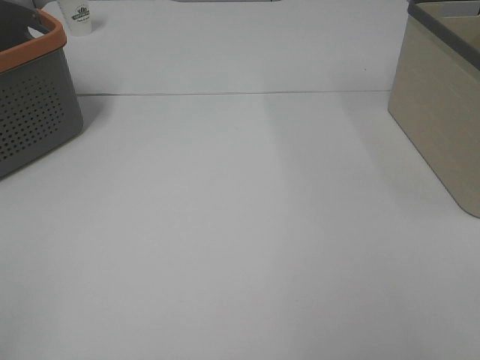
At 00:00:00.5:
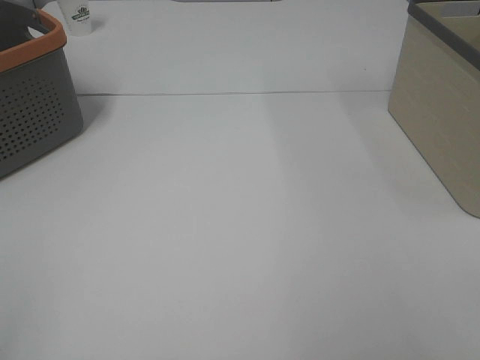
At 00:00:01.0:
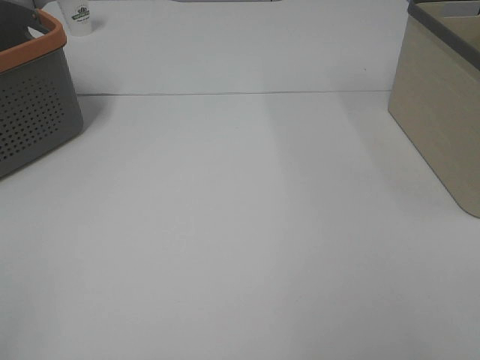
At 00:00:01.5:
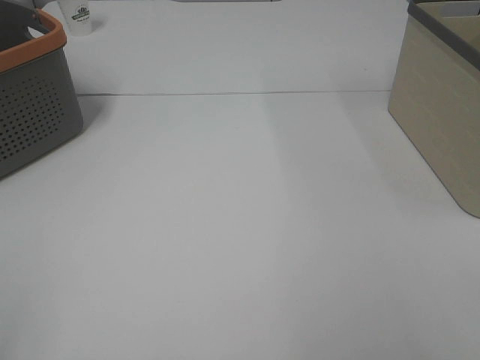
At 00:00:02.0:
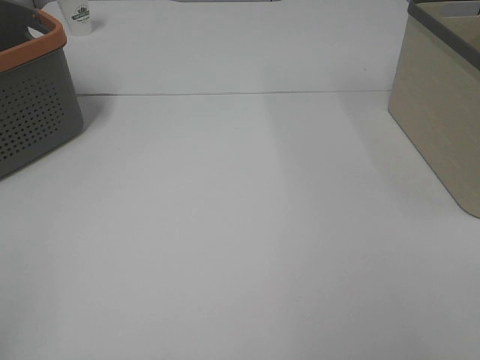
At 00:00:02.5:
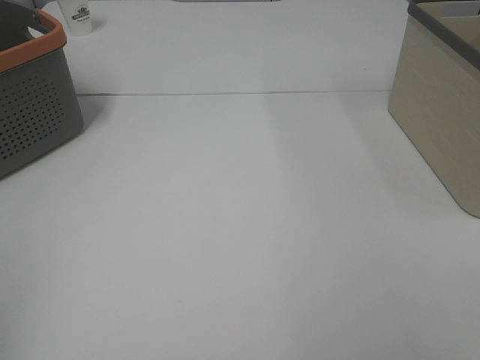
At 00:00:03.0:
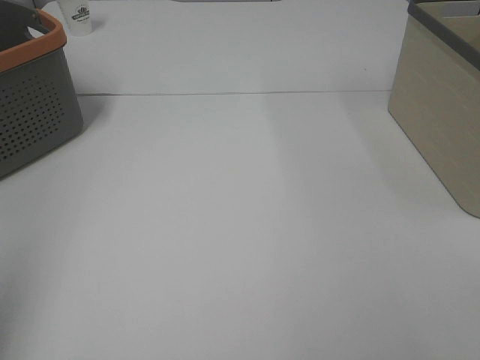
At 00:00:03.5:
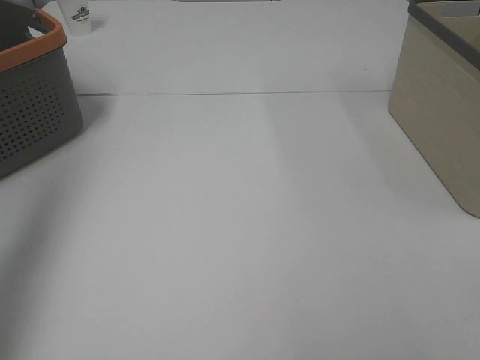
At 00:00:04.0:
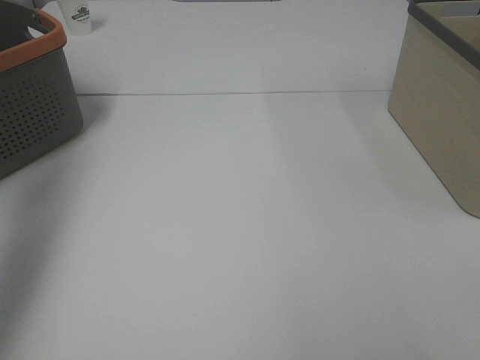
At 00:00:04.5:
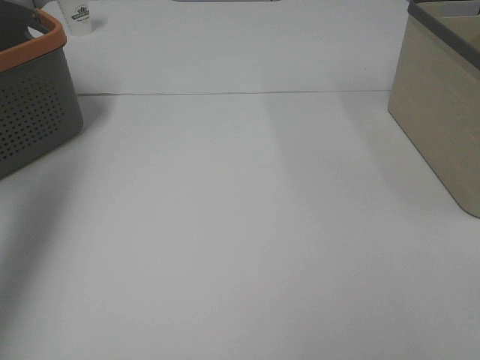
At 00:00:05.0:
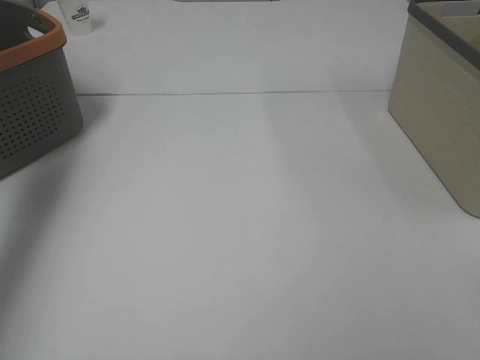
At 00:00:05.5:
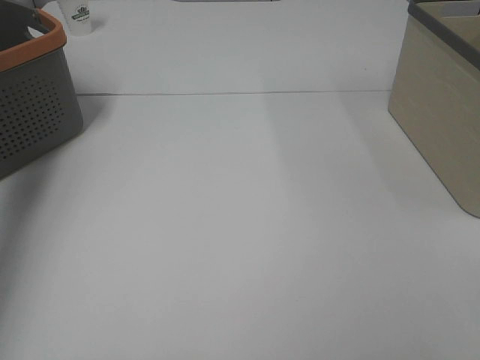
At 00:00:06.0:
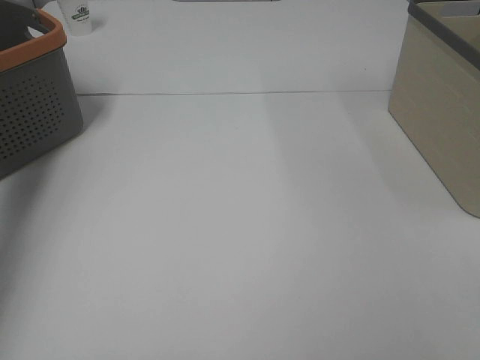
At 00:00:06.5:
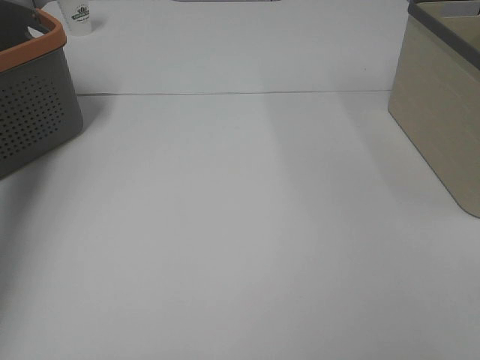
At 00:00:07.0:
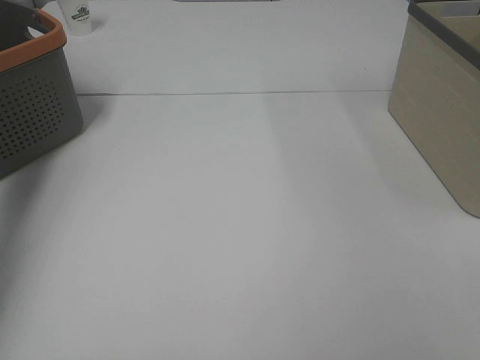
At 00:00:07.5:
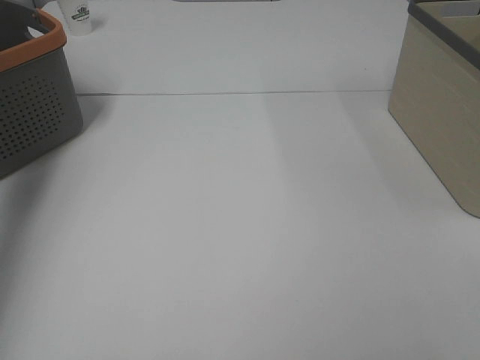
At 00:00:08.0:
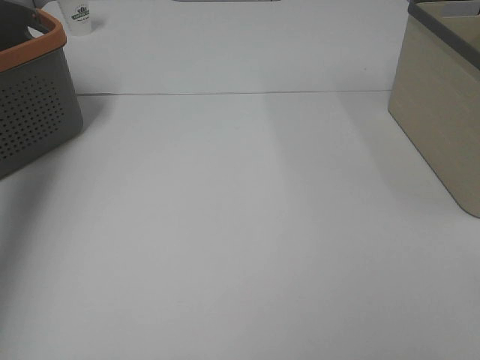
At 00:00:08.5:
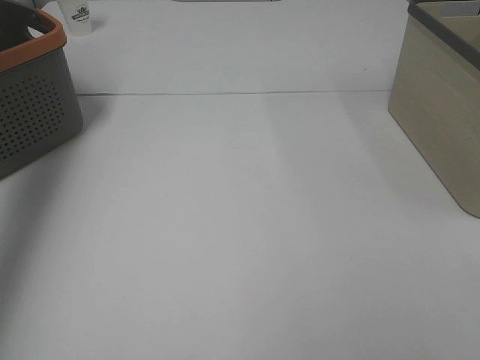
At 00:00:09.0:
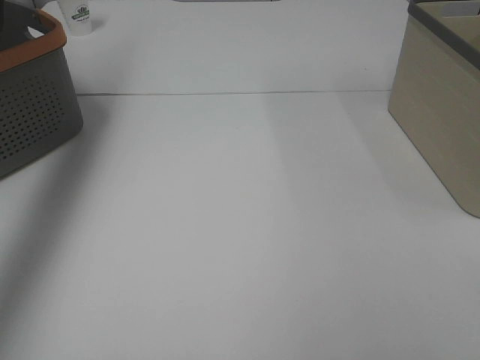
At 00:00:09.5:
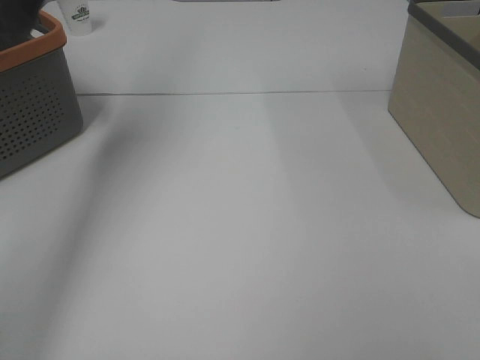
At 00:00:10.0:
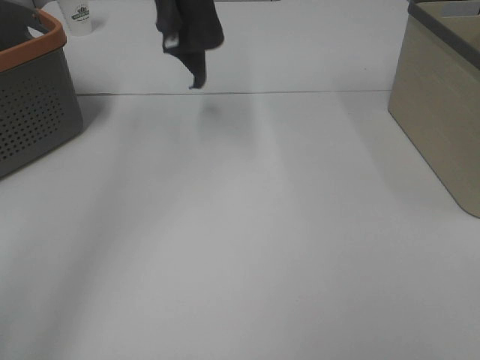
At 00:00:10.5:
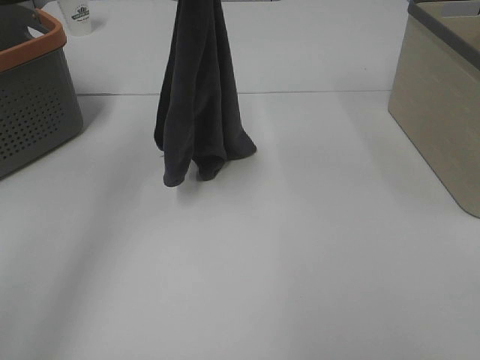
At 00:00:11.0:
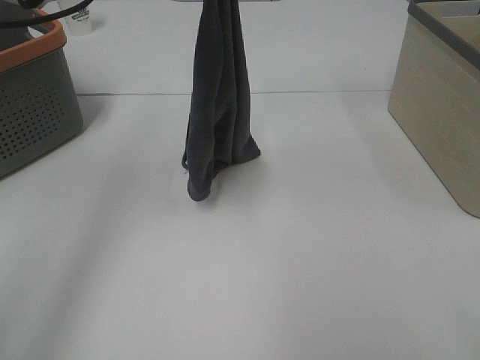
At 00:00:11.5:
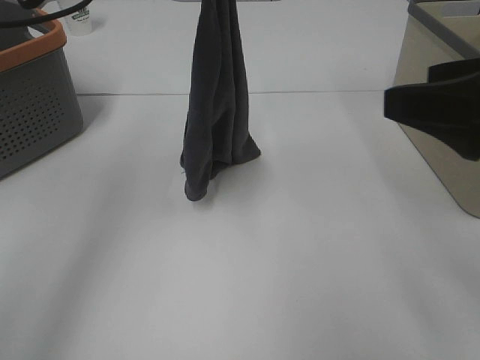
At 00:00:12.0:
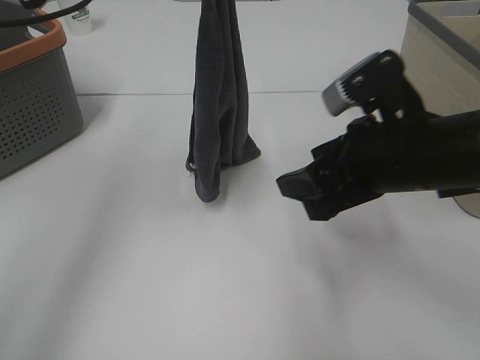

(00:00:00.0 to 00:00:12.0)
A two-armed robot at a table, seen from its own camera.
Task of the whole recording: Remove the towel and place it.
00:00:02.0 - 00:00:04.0: The left gripper travels forward by some 30 cm.
00:00:04.0 - 00:00:06.0: The left gripper shifts roughly 20 cm downward and forward.
00:00:08.0 - 00:00:10.0: The left gripper travels to the right and upward by some 25 cm.
00:00:10.0 - 00:00:12.0: The right gripper travels forward, to the left and downward by approximately 30 cm; the left gripper is displaced downward by roughly 15 cm.

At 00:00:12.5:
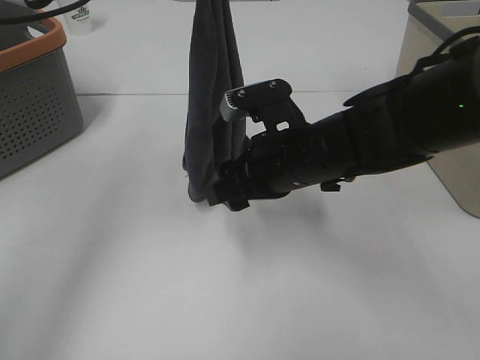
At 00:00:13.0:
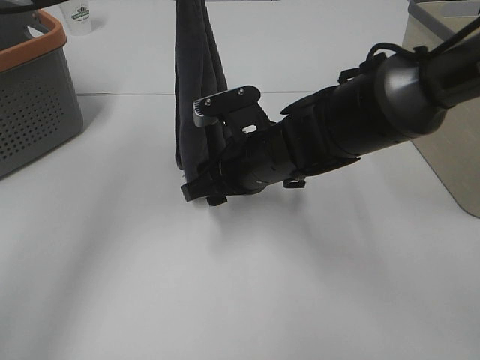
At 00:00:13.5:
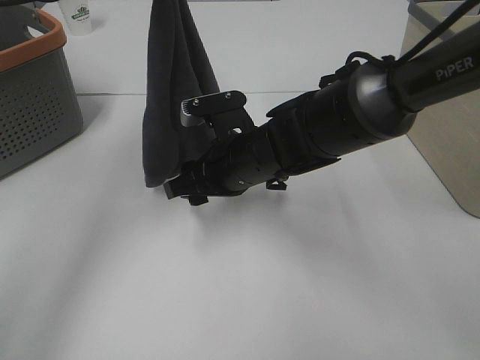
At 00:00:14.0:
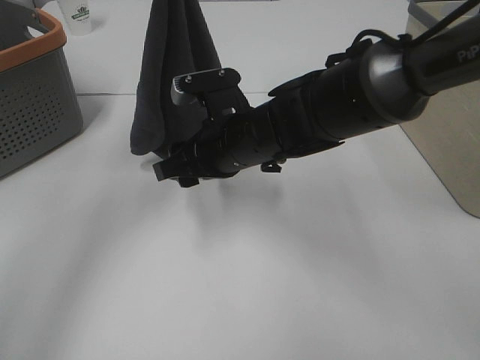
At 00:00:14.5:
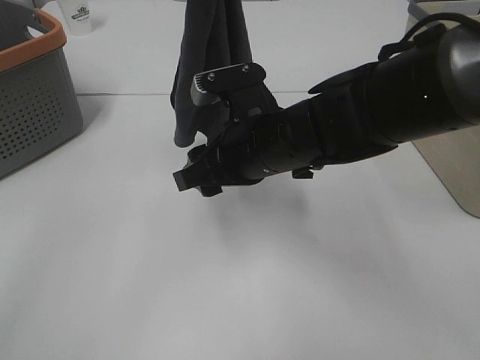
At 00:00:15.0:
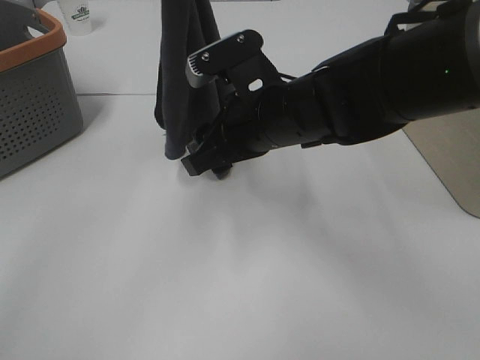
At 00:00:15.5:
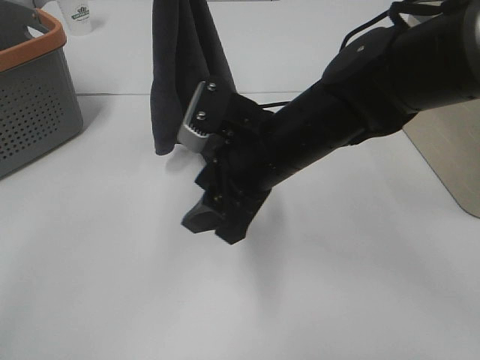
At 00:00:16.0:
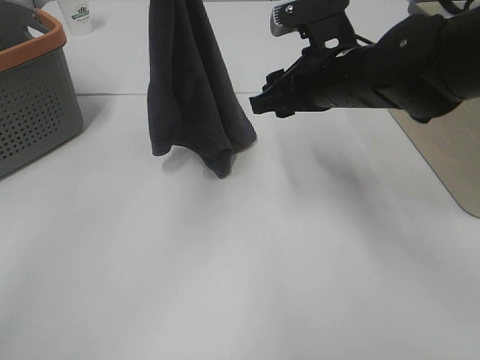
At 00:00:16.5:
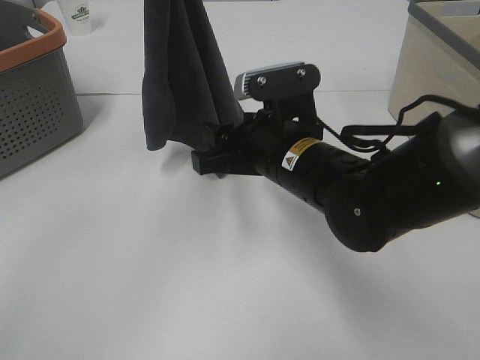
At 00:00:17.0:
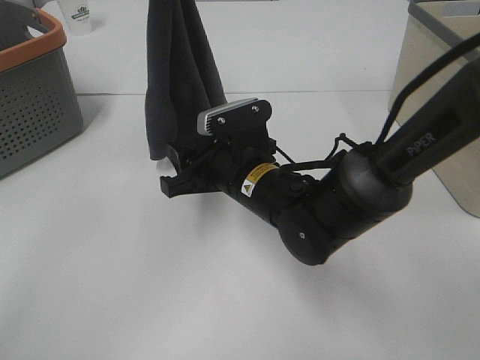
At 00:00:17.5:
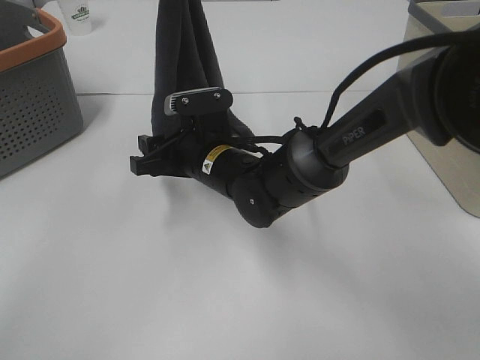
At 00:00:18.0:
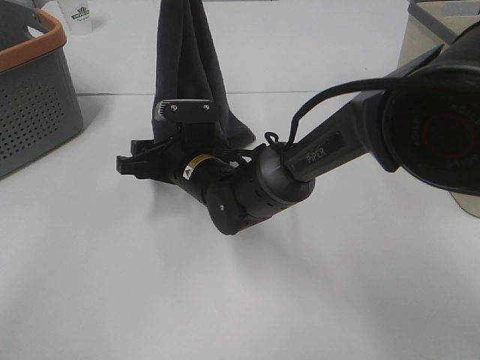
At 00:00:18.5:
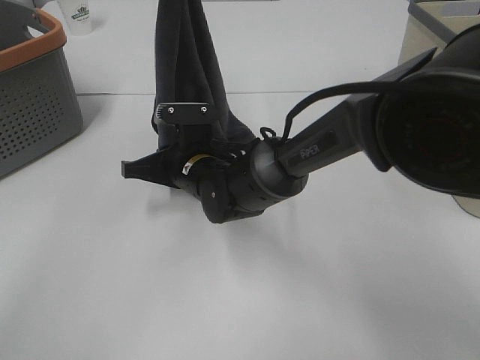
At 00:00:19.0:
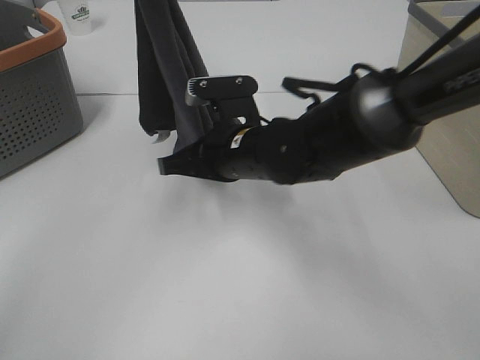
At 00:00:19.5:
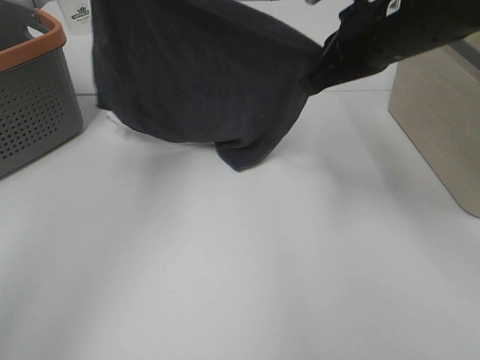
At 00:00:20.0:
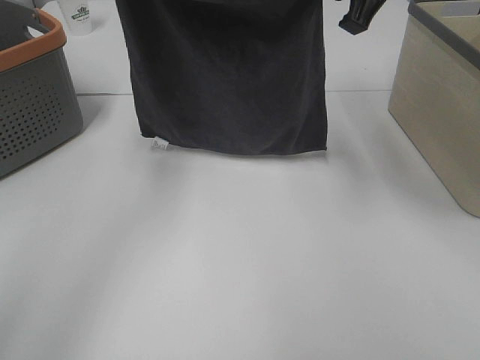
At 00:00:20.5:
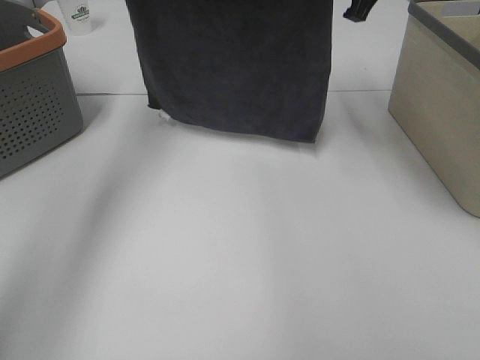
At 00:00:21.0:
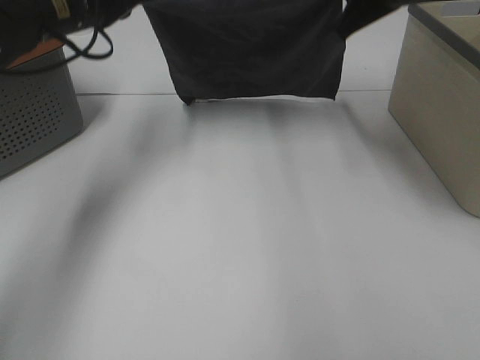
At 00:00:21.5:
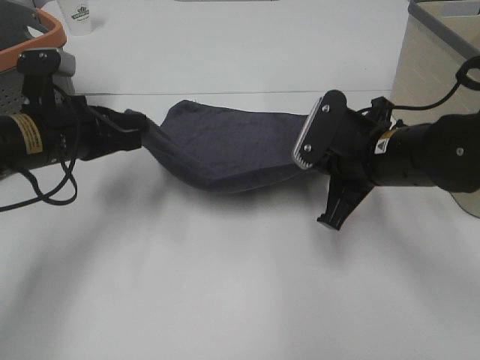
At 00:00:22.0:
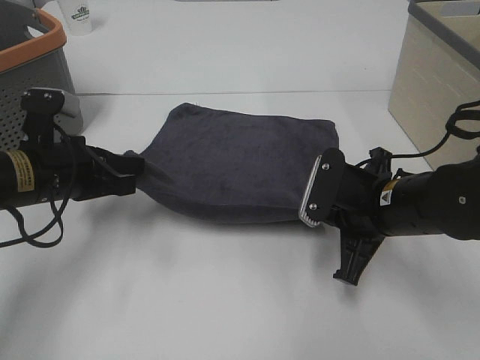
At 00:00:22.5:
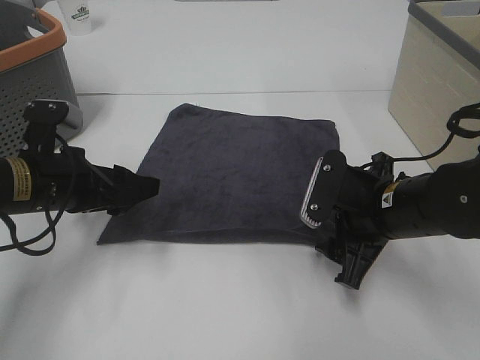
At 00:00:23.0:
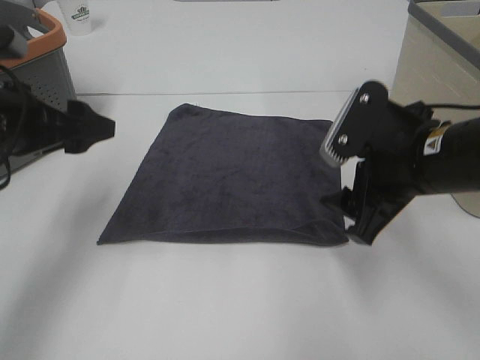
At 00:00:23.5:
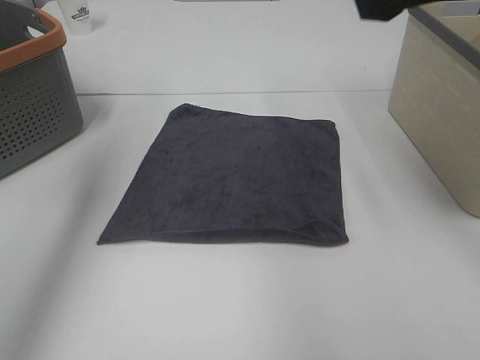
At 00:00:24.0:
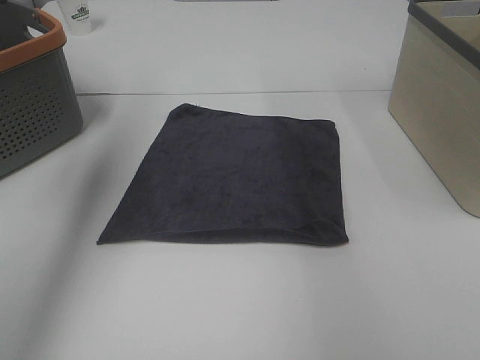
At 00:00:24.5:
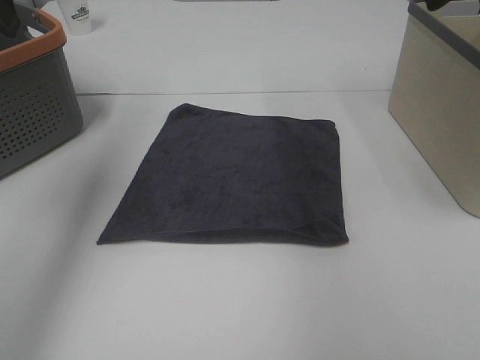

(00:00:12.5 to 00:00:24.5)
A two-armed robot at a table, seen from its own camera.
Task of the whole recording: Remove the towel and place it.
Step, 00:00:12.5 - 00:00:16.0: Right hand: grab a corner of the grey towel and straighten it.
Step, 00:00:16.5 - 00:00:18.0: Left hand: spread the grey towel flat on the table.
Step, 00:00:16.5 - 00:00:18.0: Right hand: spread the grey towel flat on the table.
00:00:12.5 - 00:00:14.5: The left gripper is displaced to the right by some 5 cm.
00:00:16.5 - 00:00:18.5: The right gripper is displaced to the left, downward and forward by roughly 15 cm, and closes up.
00:00:18.5 - 00:00:20.5: The right gripper is displaced upward and to the right by about 35 cm; the left gripper heads to the left and forward, covering approximately 15 cm.
00:00:20.5 - 00:00:22.5: Both grippers move downward and backward, approximately 25 cm. The left gripper opens its fingers. The right gripper opens its fingers.
00:00:22.5 - 00:00:24.5: The left gripper moves upward, about 25 cm, while the right gripper shifts approximately 30 cm upward and to the right.

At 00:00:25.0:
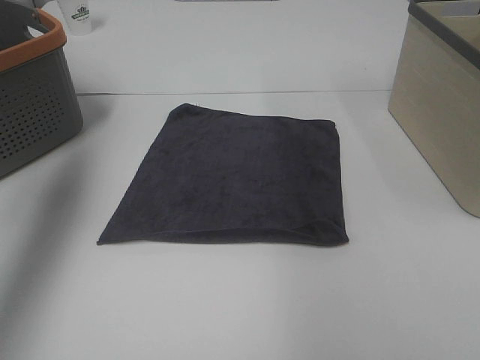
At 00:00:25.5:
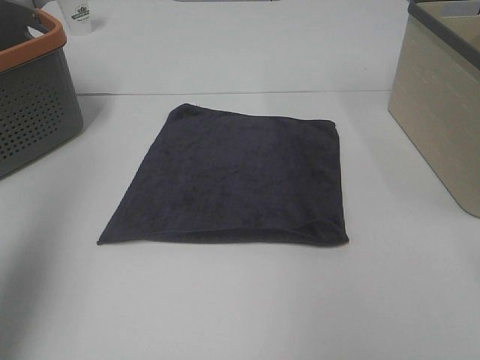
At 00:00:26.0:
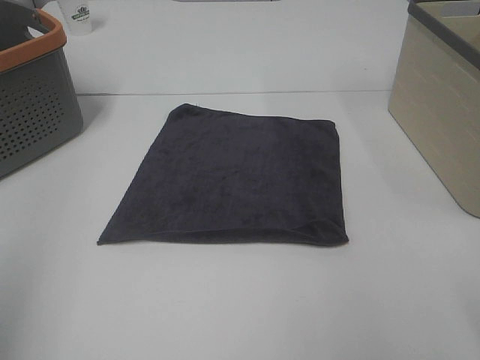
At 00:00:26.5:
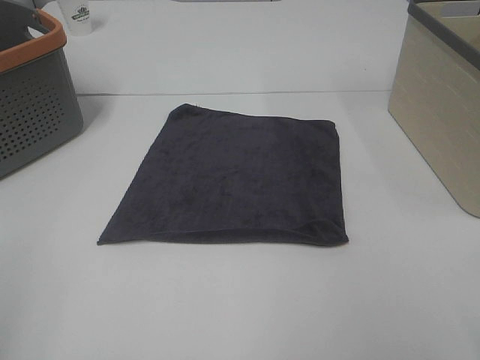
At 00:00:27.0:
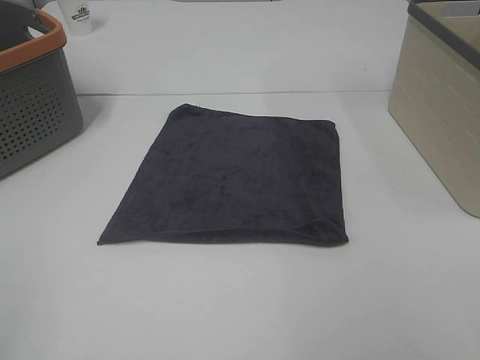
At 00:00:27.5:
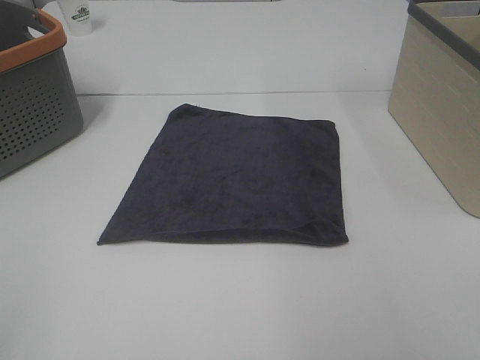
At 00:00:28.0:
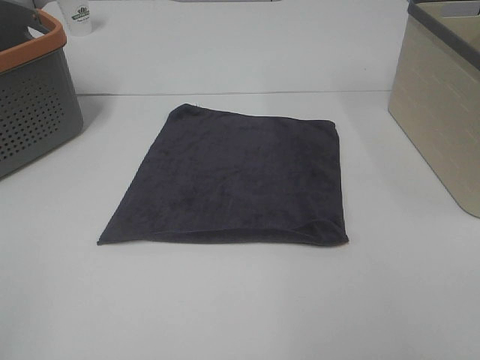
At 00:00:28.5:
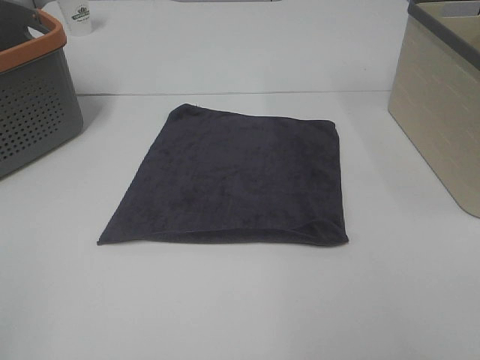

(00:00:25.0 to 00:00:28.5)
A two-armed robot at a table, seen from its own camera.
Task of the whole recording: Remove the towel and place it.
00:00:25.0 - 00:00:27.0: The left gripper moves backward, approximately 30 cm.
